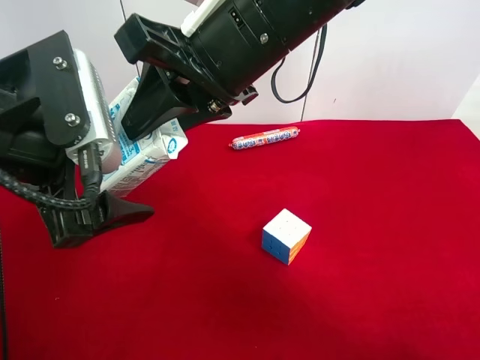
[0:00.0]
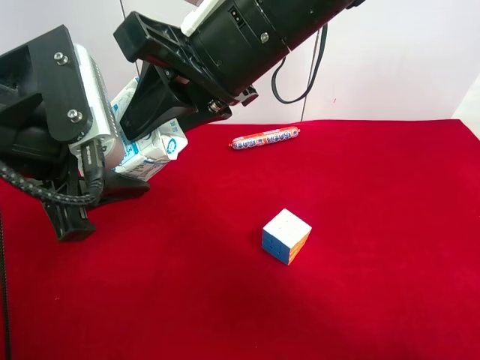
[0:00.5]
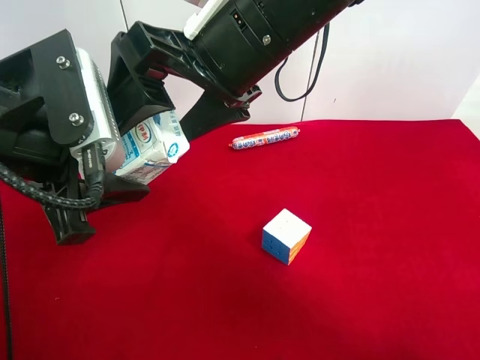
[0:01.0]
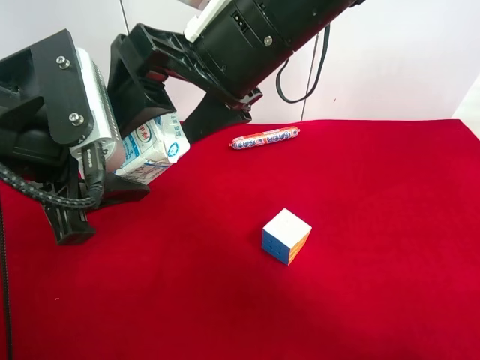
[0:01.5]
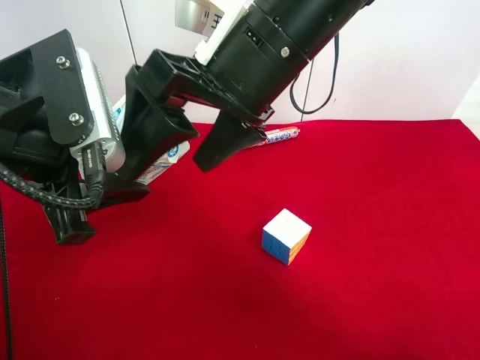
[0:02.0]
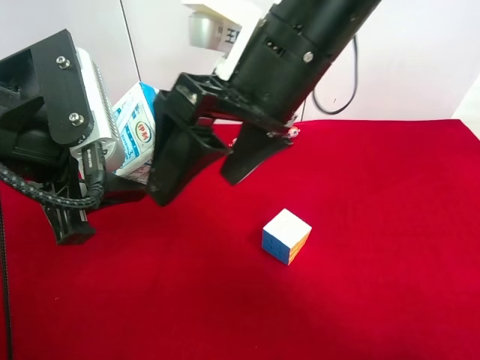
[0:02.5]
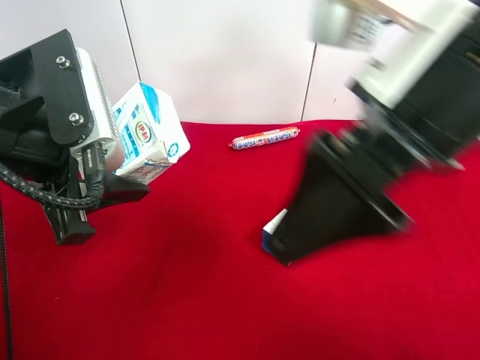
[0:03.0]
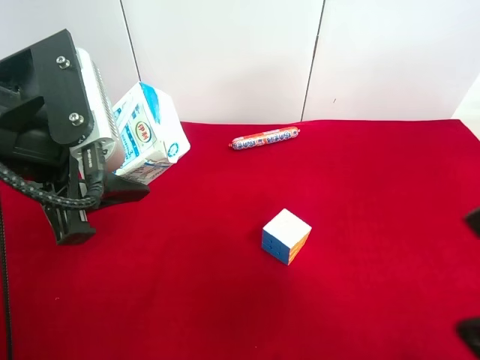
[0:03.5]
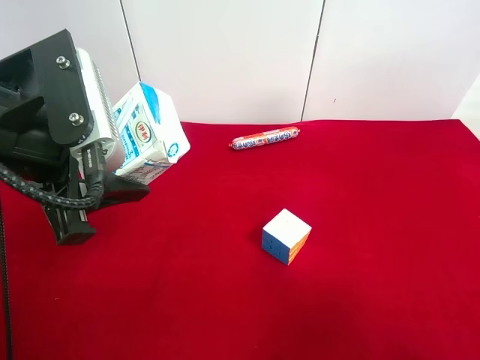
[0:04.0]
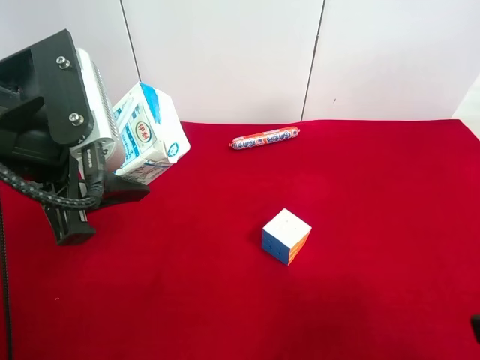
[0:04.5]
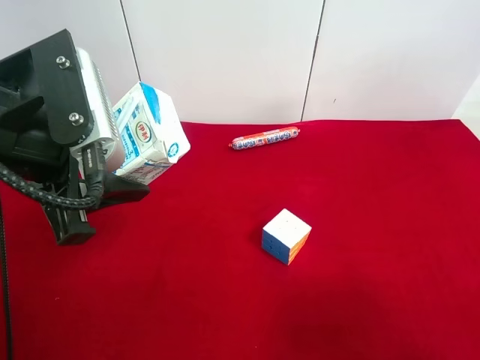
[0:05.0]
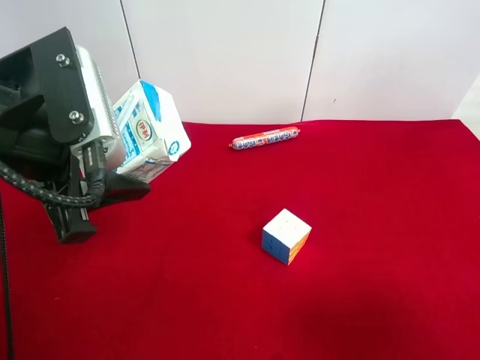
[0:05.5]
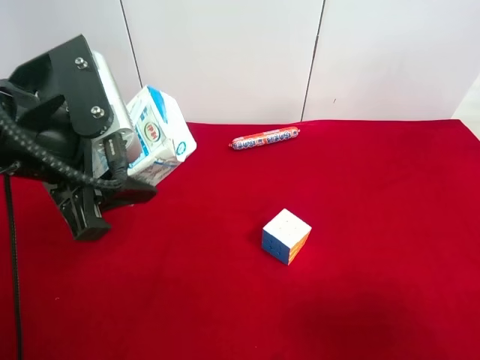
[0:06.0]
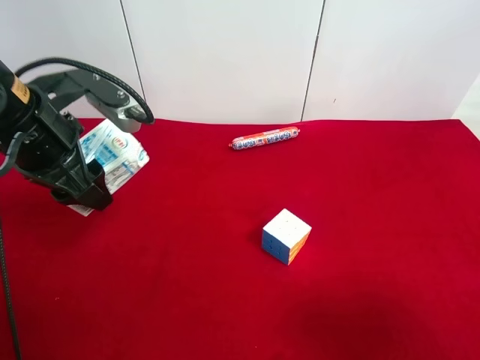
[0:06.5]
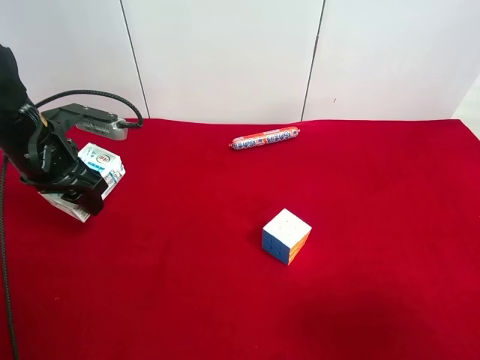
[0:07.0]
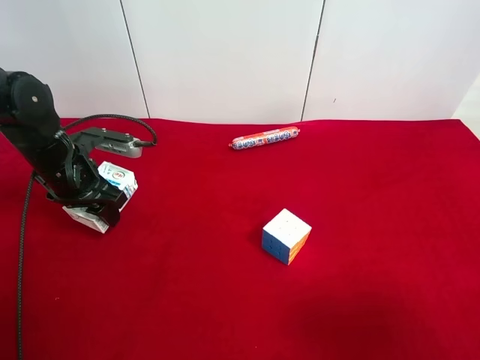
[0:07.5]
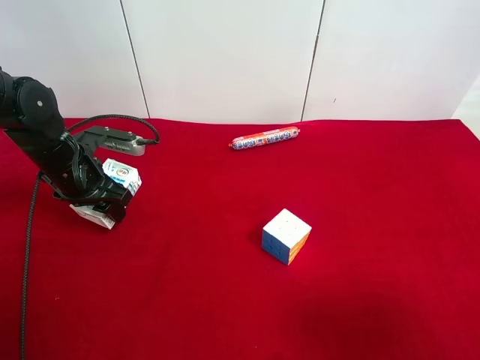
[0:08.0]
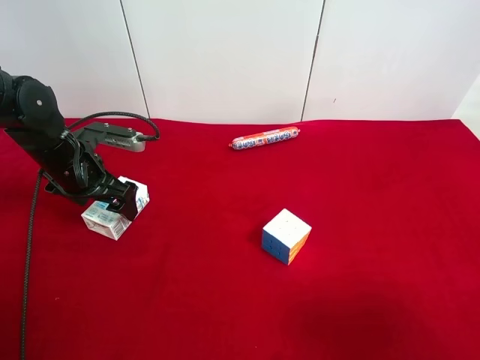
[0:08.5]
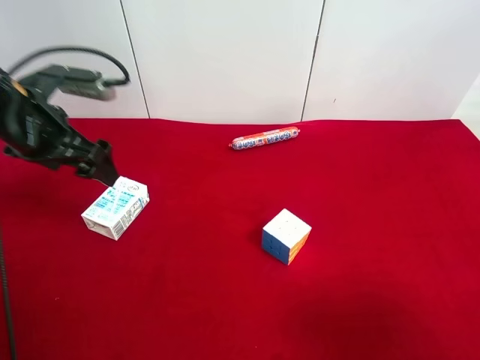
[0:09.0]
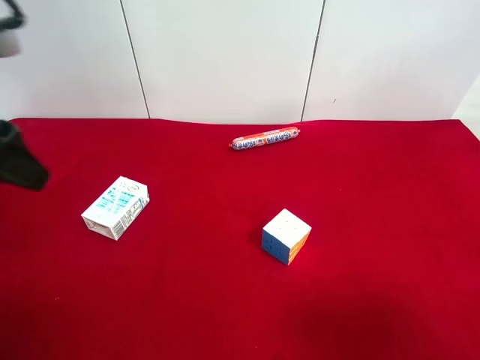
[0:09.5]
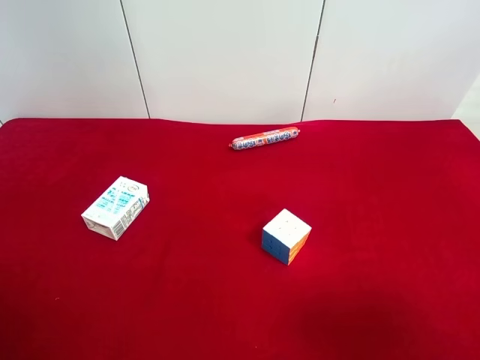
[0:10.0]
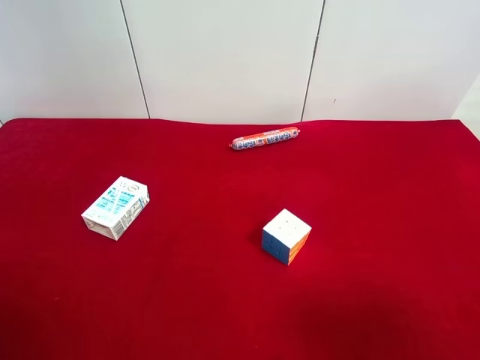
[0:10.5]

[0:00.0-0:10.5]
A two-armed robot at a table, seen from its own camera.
Task of the whole recording: use the right gripper to pick up the item and transfer it from the right gripper to the left gripper.
Step, 0:01.5 to 0:08.0: The left gripper places milk on the left side of the table.
0:00.0 to 0:02.0: The left gripper closes up. The right gripper opens.
0:02.0 to 0:04.0: The right gripper travels to the right and backward by approximately 30 cm.
0:04.0 to 0:06.5: The left gripper moves forward, some 5 cm.
0:06.5 to 0:08.5: The left gripper goes some 15 cm downward and forward, and opens its fingers.
0:08.5 to 0:10.5: The left gripper travels backward and upward by about 35 cm.
